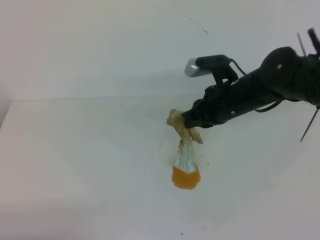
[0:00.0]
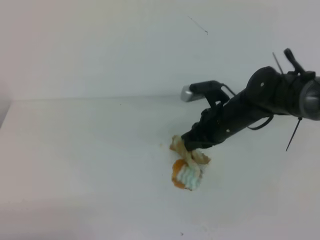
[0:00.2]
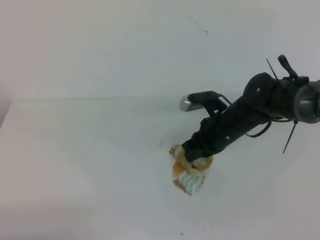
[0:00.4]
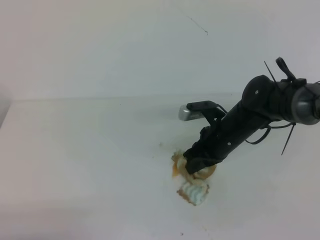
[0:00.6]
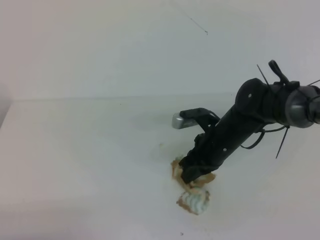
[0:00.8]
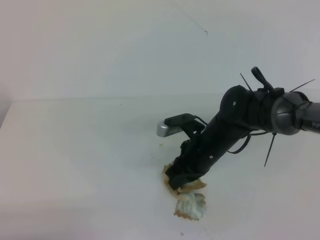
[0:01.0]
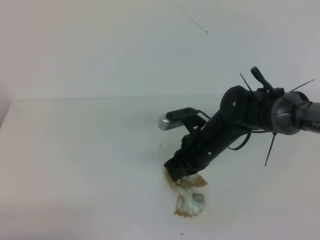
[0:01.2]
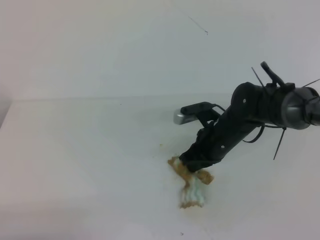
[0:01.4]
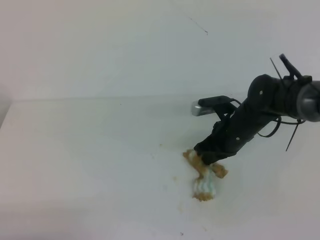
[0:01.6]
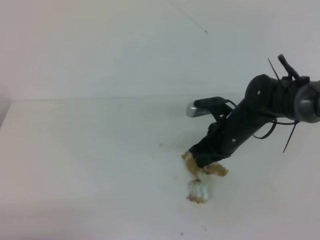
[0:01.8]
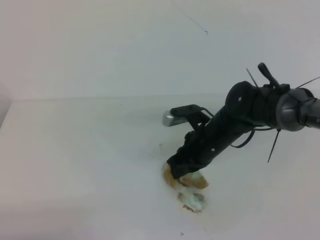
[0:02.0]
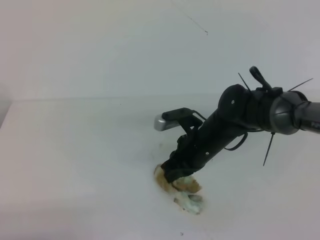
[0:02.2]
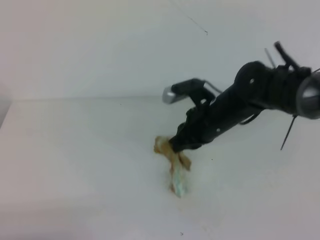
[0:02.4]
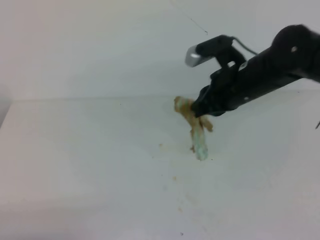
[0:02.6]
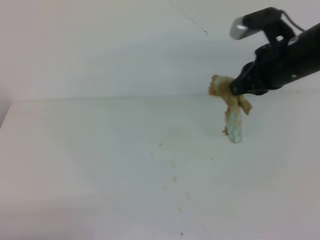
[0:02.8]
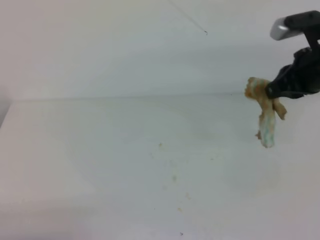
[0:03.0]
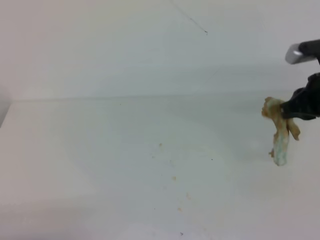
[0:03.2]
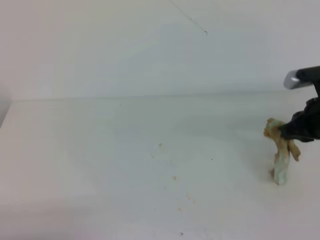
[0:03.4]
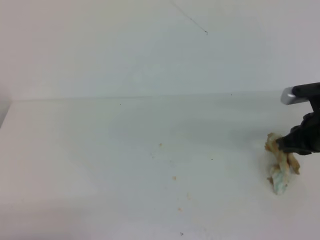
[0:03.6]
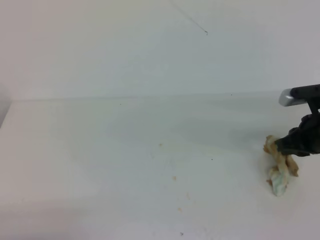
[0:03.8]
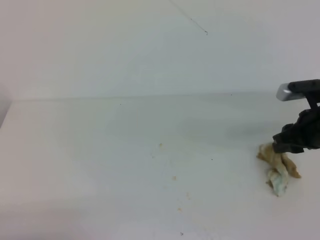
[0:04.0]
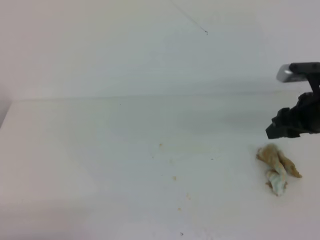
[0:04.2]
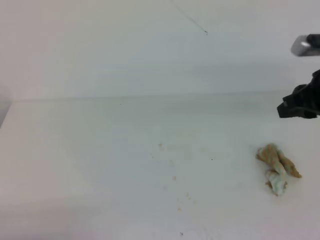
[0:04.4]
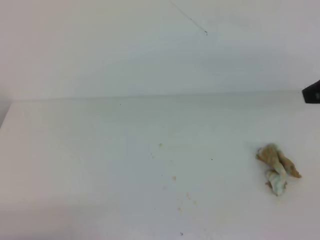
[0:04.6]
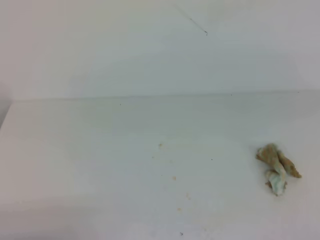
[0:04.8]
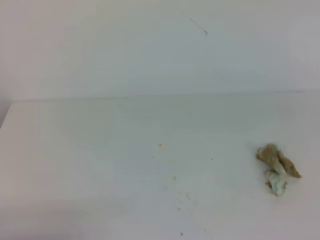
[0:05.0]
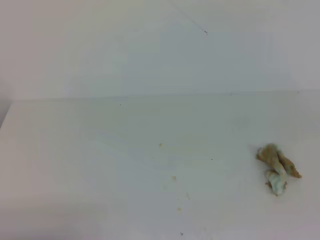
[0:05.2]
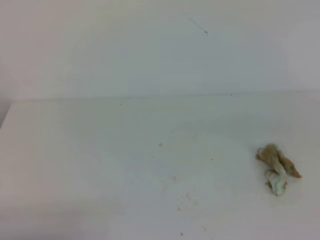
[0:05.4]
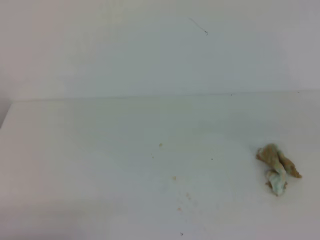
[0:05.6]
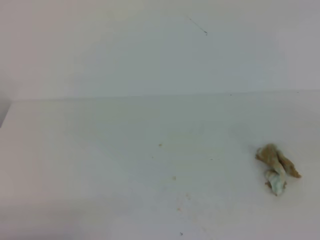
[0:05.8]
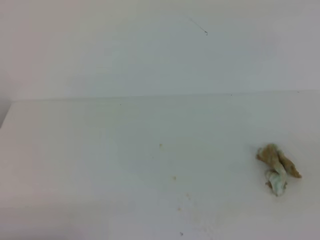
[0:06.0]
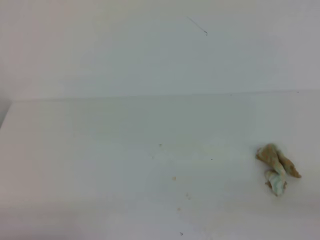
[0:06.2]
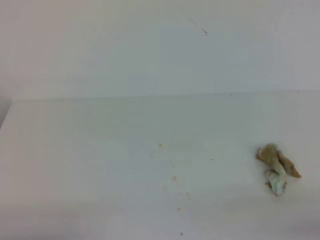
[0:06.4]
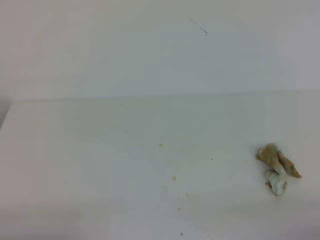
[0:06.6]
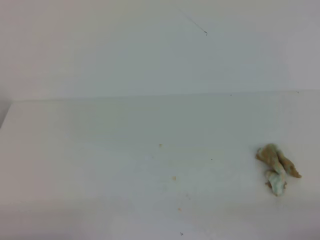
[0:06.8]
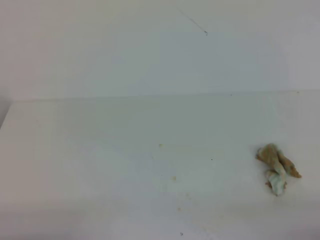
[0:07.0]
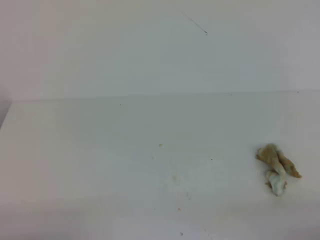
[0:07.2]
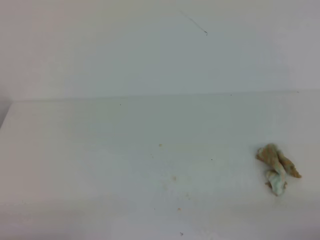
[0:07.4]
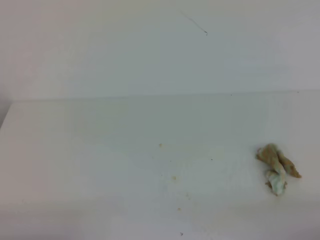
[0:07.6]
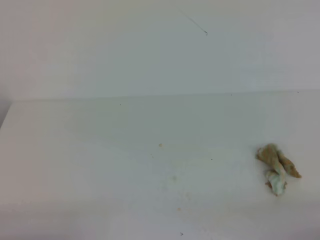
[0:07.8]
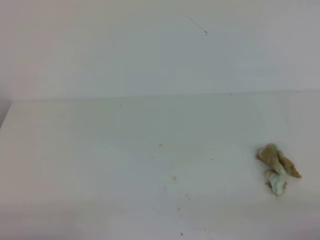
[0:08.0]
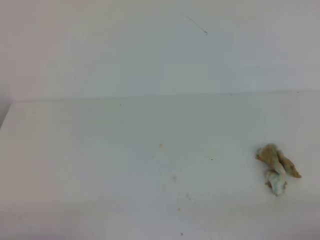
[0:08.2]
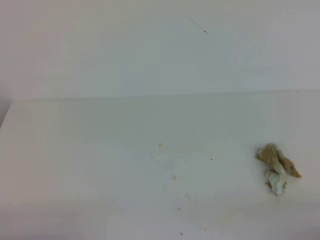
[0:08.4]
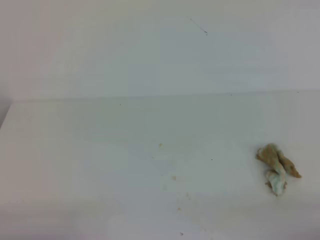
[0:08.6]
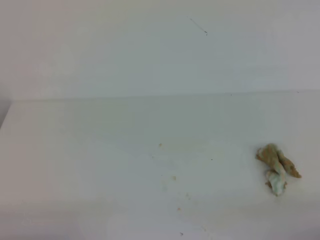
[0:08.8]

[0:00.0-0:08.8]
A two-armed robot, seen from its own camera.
0:00.0 to 0:01.4: The right gripper heads downward, covering some 5 cm.
0:01.4 to 0:03.0: The right gripper is displaced upward and to the right by some 20 cm.
0:03.0 to 0:04.4: The right gripper goes downward and returns, roughly 10 cm each way, and opens up.
0:04.4 to 0:05.8: The right gripper shifts about 20 cm backward, and closes up.
0:07.4 to 0:08.8: Neither gripper changes place.
